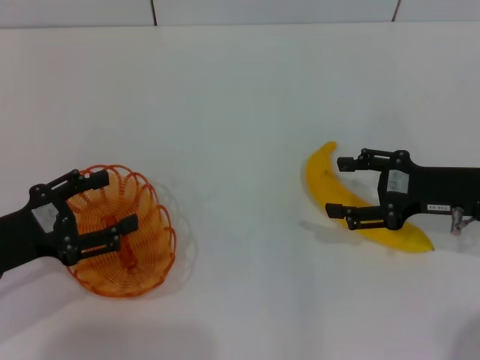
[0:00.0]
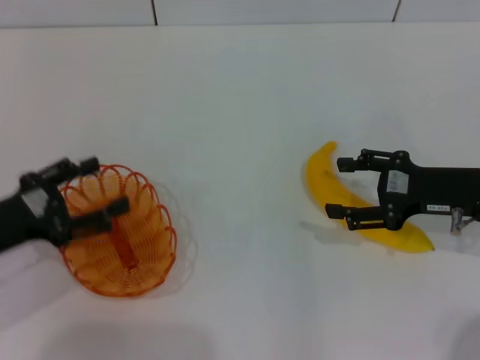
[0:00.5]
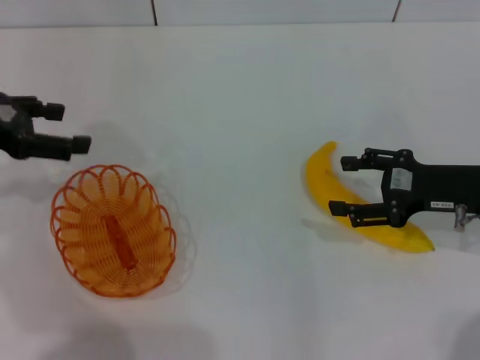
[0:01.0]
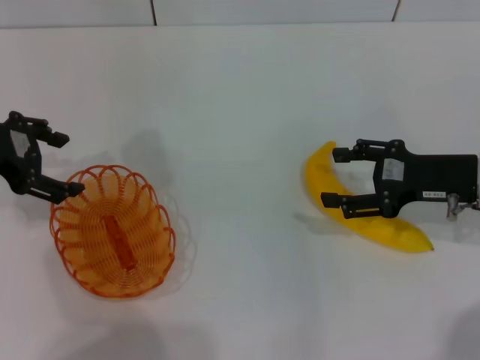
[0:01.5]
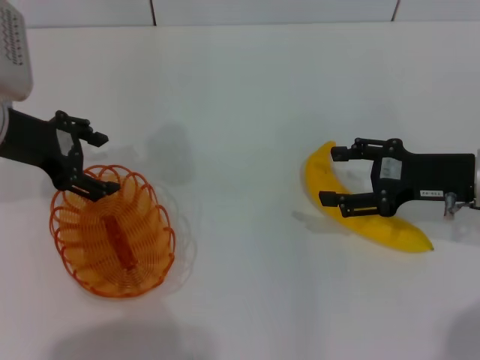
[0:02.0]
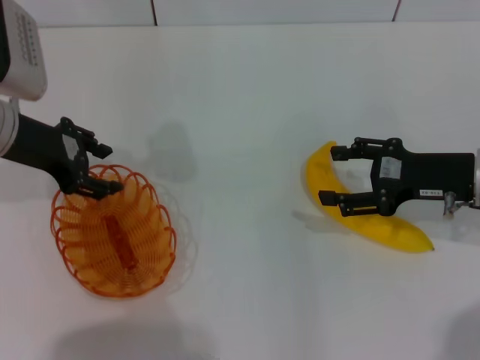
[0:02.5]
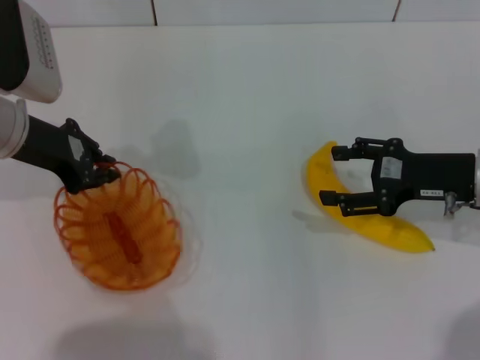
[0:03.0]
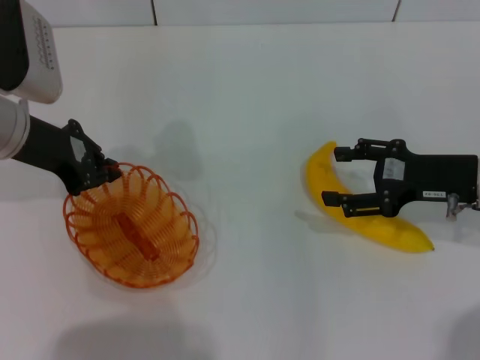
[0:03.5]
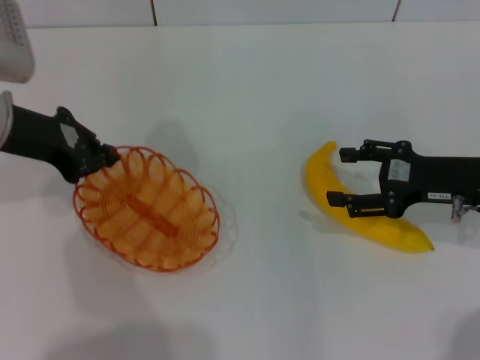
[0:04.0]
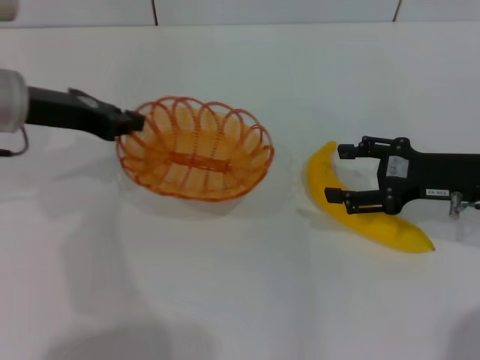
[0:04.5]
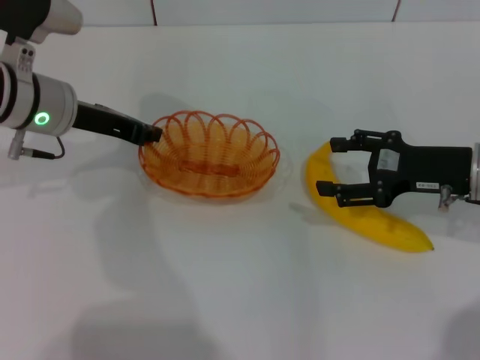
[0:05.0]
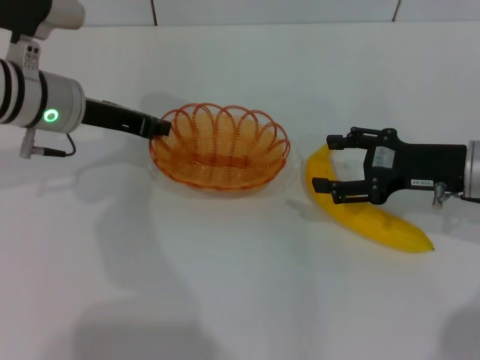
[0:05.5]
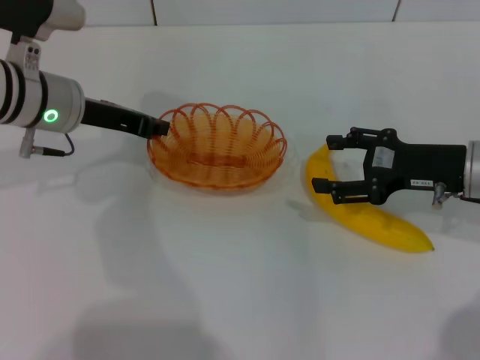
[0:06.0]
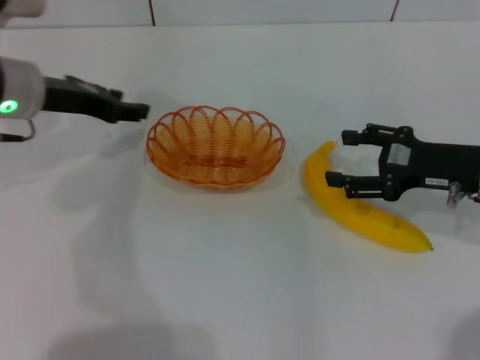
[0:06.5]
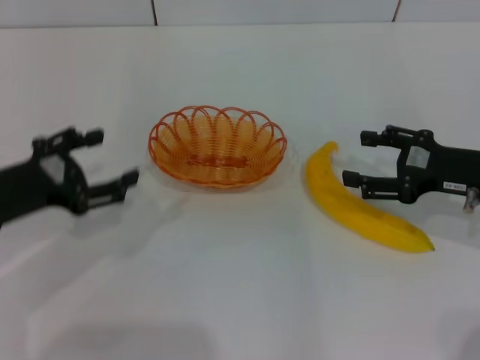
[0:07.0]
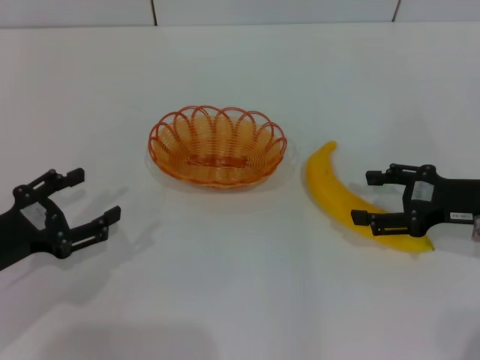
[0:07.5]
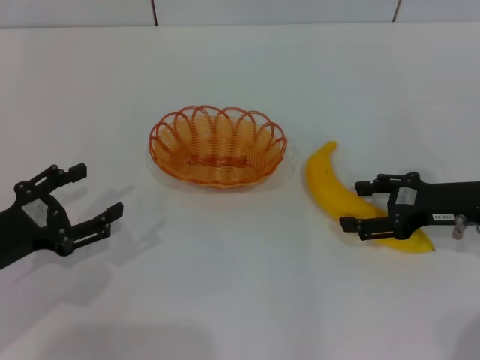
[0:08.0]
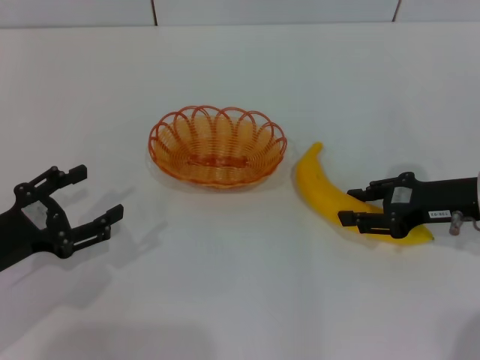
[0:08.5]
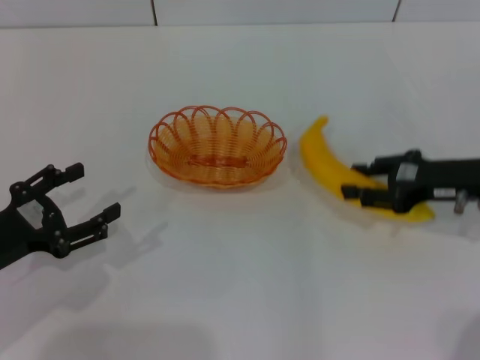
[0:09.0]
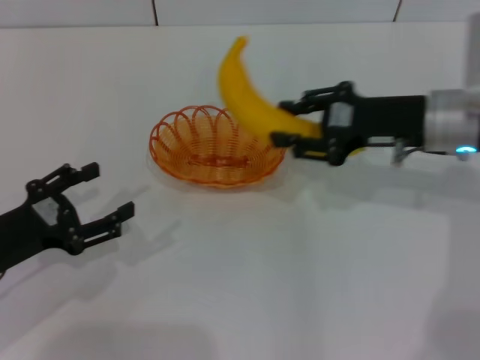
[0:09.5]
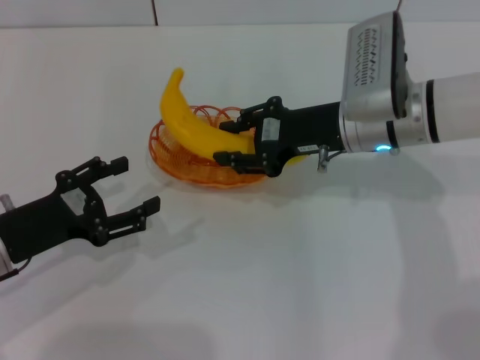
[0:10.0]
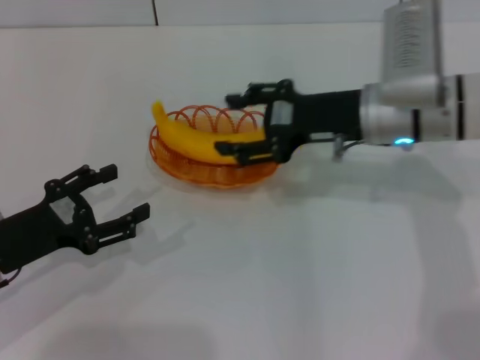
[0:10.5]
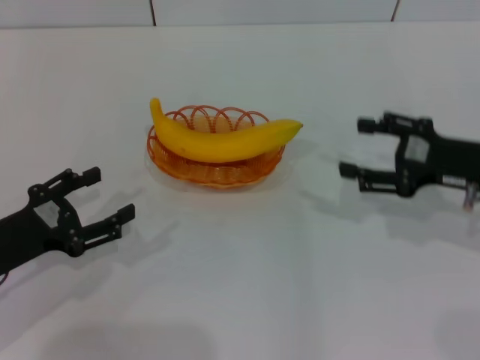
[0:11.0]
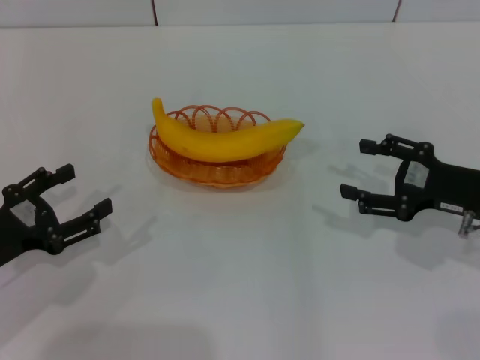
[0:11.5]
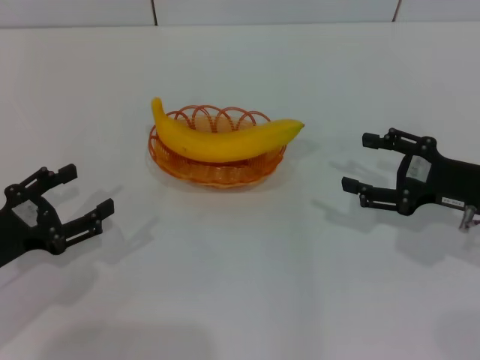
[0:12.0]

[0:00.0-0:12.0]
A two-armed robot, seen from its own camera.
Step, 0:00.0 to 0:03.5: Pick up the basket with the left gripper.
Step, 0:04.0 to 0:06.5: Place the basket in the center of view with the left gripper.
Step, 0:07.0 to 0:09.0: Pick up the banana with the right gripper.
Step, 0:09.5 to 0:10.5: Place the banana into the basket with the right gripper.
0:00.0 to 0:02.0: The left gripper is displaced forward and upward by roughly 15 cm.
0:02.0 to 0:04.0: The left gripper closes up.
0:04.0 to 0:06.0: The left gripper is displaced to the right by some 5 cm.
0:06.0 to 0:08.0: The left gripper is displaced backward, to the left and downward by about 20 cm, and opens its fingers.
0:08.0 to 0:10.0: The right gripper goes approximately 15 cm to the left and forward, and closes its fingers.
0:10.0 to 0:12.0: The right gripper heads to the right and backward, covering some 15 cm, and opens.

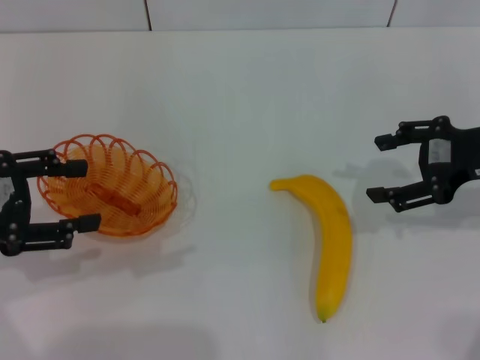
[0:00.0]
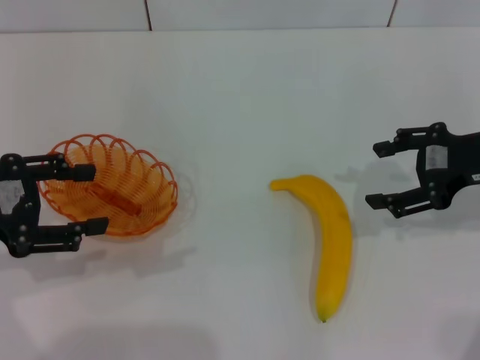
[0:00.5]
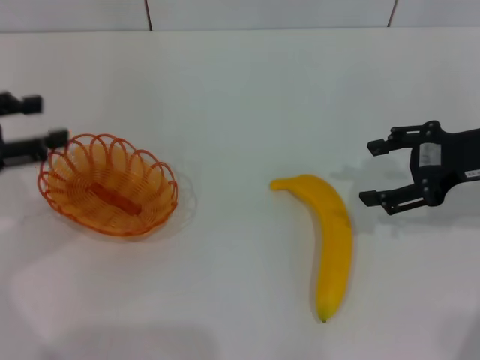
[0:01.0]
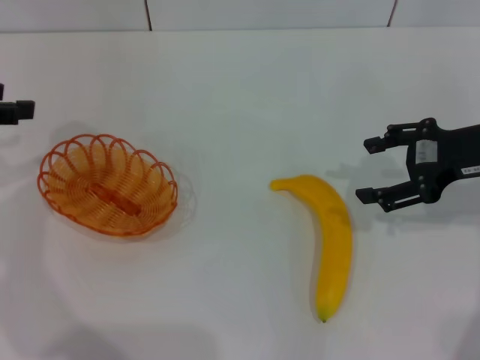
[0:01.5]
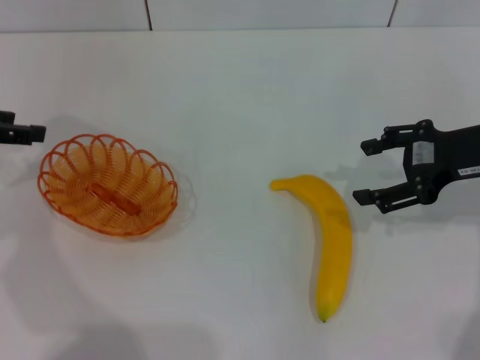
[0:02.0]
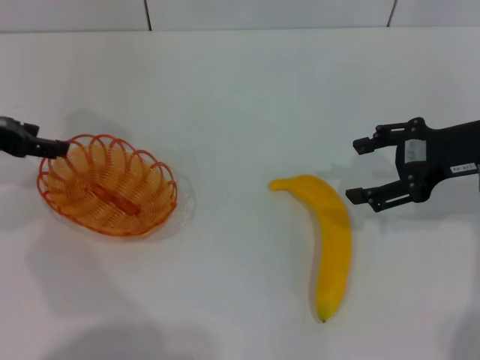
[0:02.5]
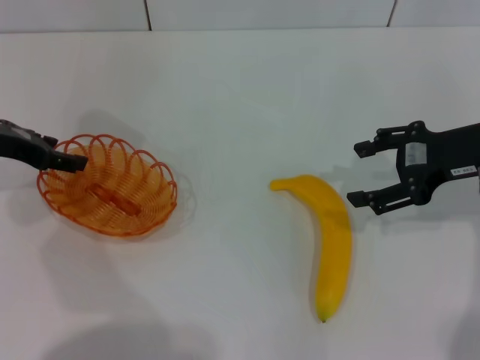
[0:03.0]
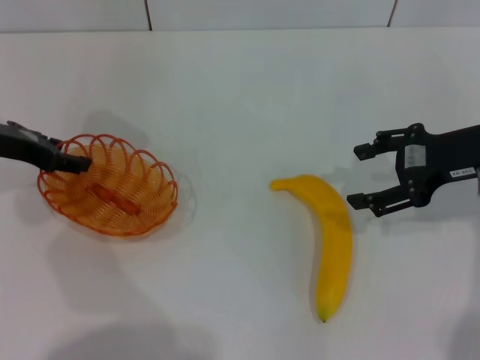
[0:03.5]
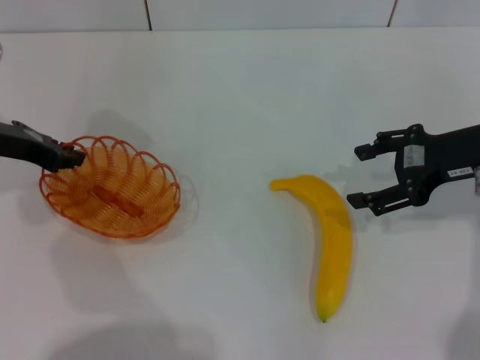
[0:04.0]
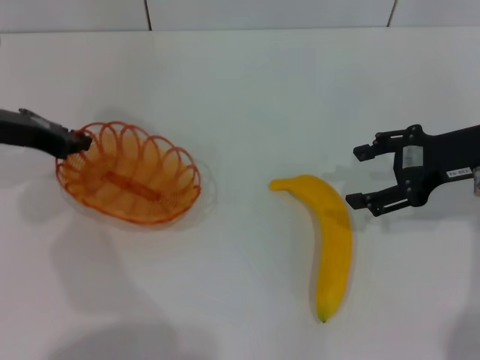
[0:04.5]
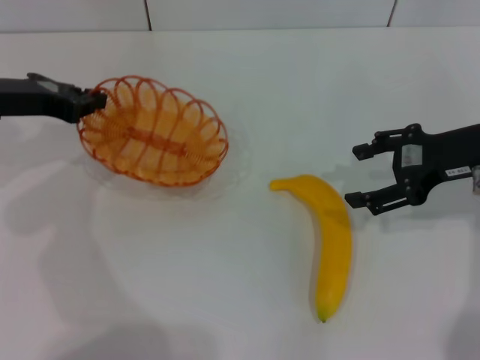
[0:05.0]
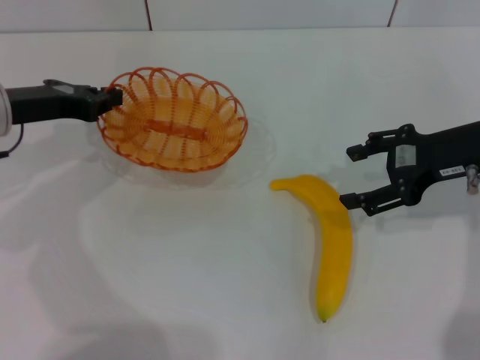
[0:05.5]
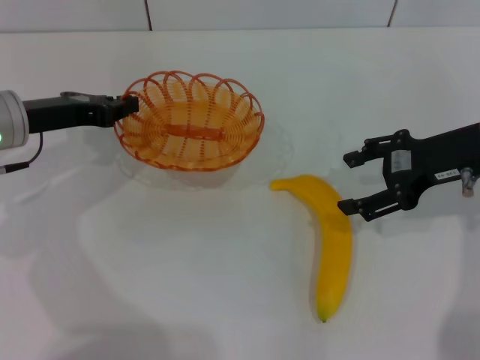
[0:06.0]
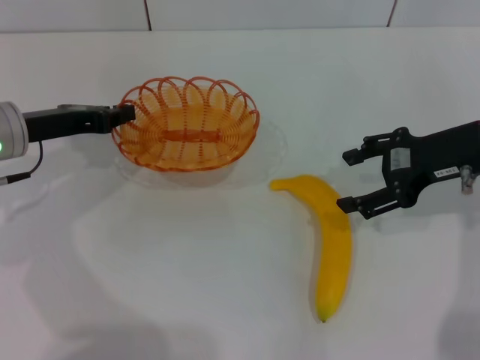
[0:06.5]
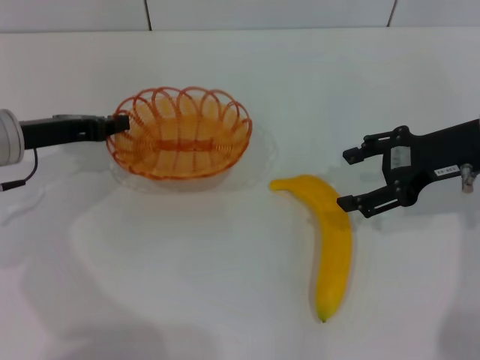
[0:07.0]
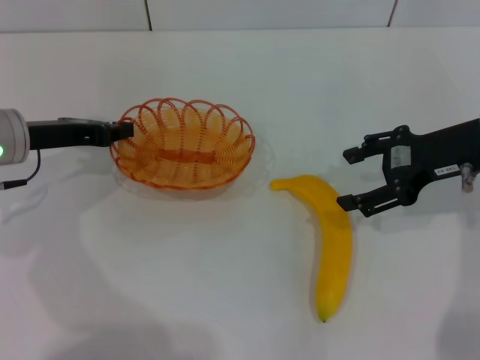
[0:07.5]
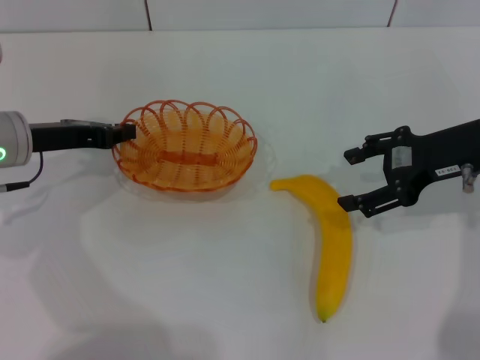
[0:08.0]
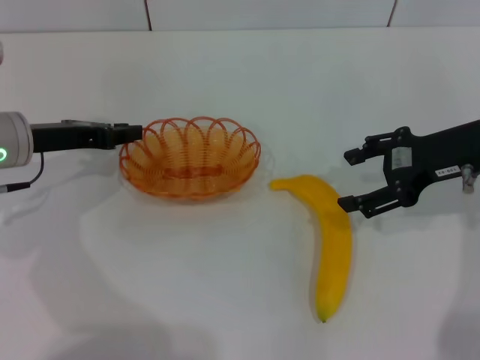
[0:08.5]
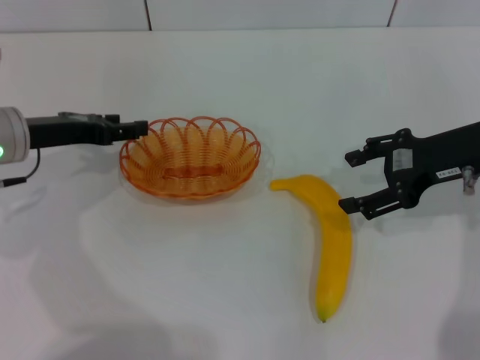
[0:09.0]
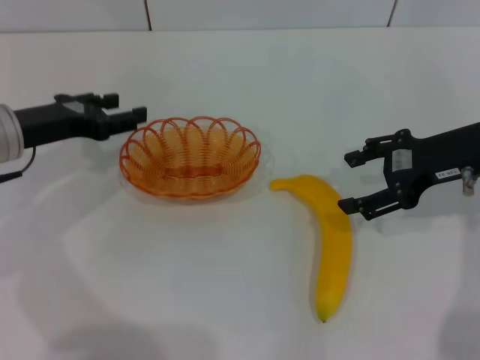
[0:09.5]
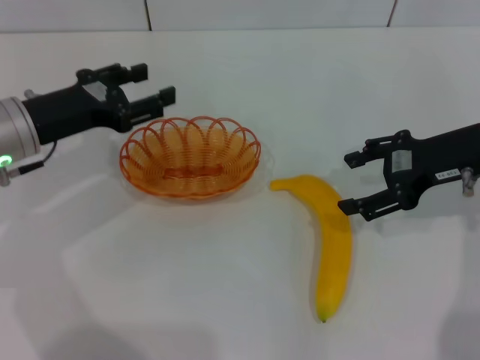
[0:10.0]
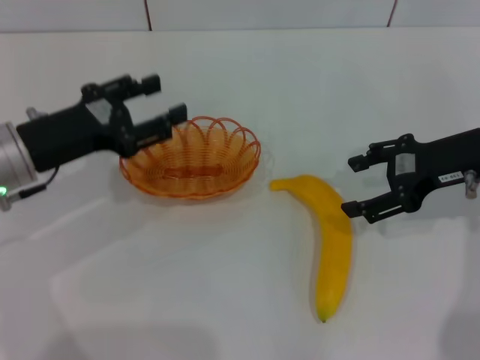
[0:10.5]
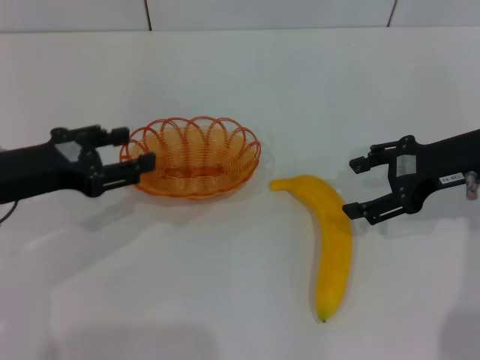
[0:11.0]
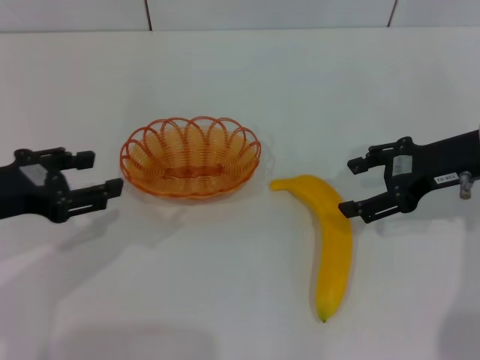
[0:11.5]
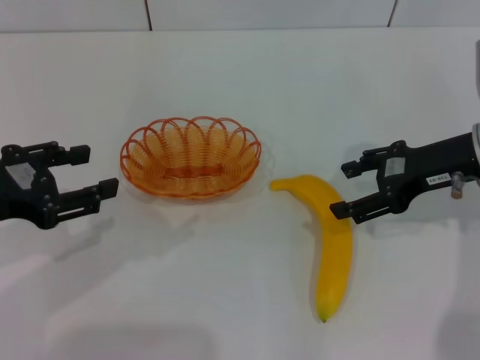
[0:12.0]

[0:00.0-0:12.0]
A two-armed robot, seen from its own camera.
Step, 0:00.0 to 0:05.0: Pick up the basket with the left gripper.
Step, 0:05.5 to 0:09.0: Place the basket in the center of view with the left gripper.
0:00.0 to 0:02.0: The left gripper is displaced forward by some 10 cm.
0:02.0 to 0:04.0: The left gripper goes some 5 cm to the right, and closes.
0:04.0 to 0:06.0: The left gripper closes.
0:06.0 to 0:08.0: The grippers move only a little.
0:08.0 to 0:10.0: The left gripper opens its fingers.
0:10.0 to 0:12.0: The left gripper moves backward, about 10 cm.

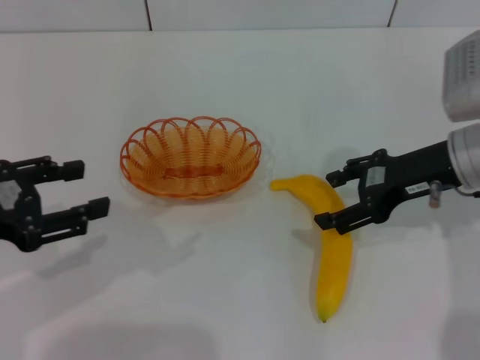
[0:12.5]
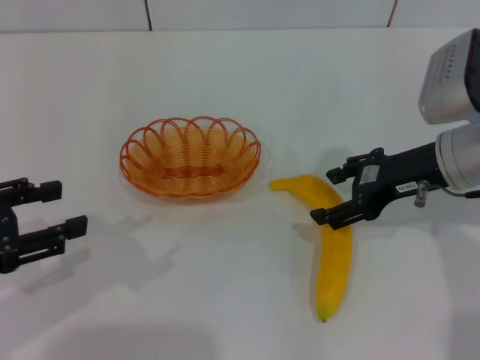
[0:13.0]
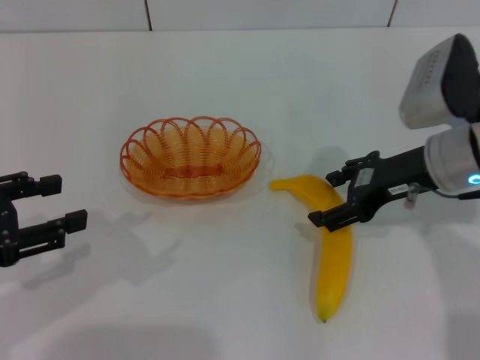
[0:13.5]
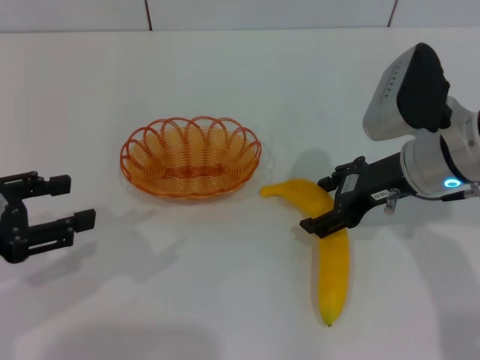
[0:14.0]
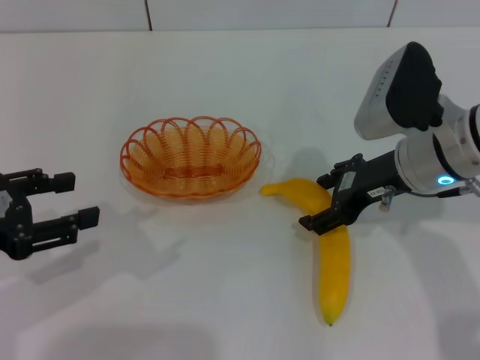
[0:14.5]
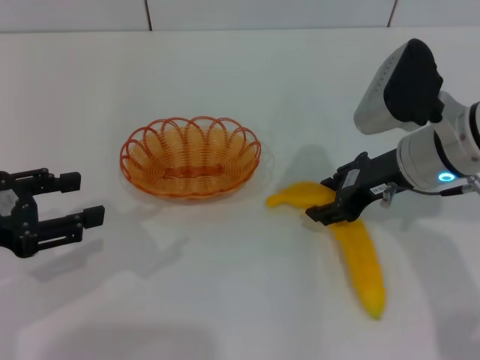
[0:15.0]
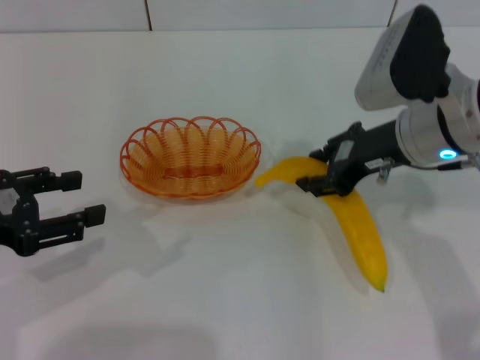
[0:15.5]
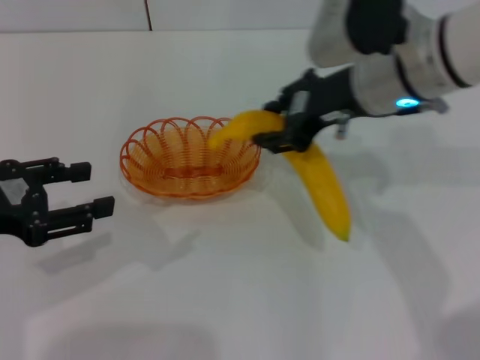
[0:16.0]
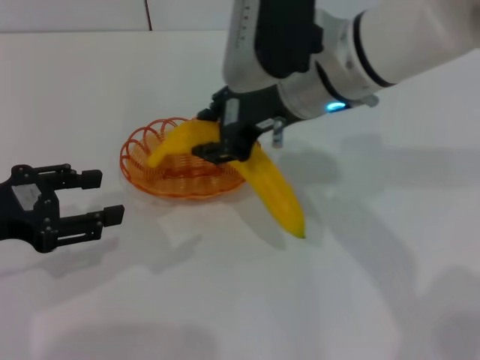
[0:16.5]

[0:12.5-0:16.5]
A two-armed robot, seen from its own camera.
Step, 0:12.5 to 0:15.5: Pick up the banana with the right gripper.
0:12.5 to 0:14.5: The grippers make only small movements.
0:14.5 to 0:16.5: The right gripper is displaced to the left and upward by approximately 15 cm, and closes.
